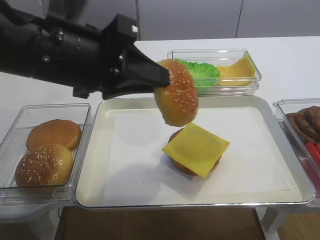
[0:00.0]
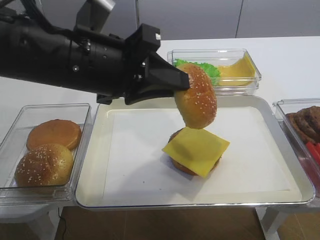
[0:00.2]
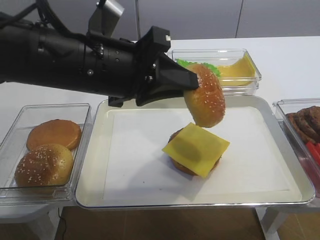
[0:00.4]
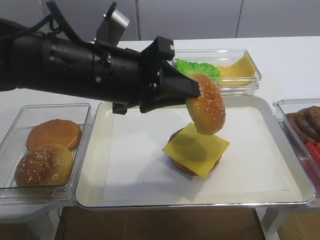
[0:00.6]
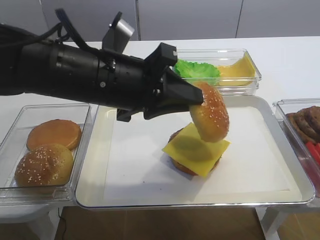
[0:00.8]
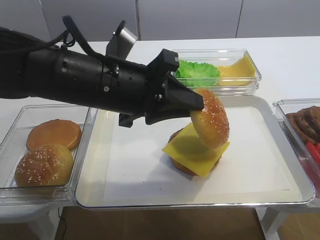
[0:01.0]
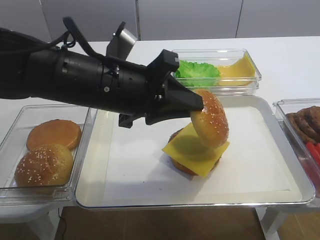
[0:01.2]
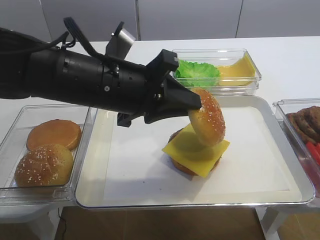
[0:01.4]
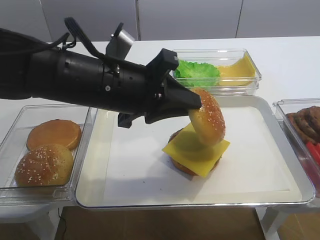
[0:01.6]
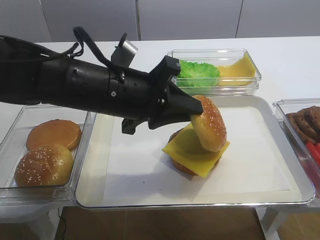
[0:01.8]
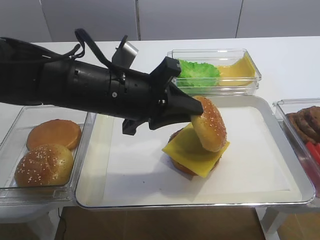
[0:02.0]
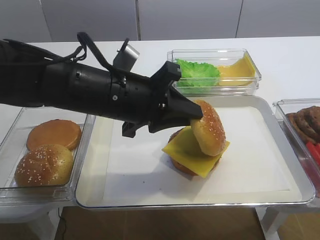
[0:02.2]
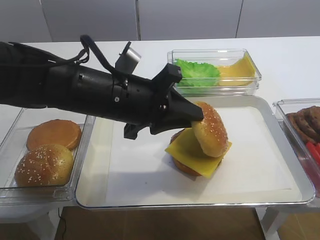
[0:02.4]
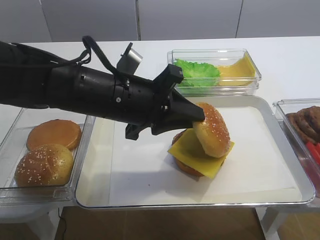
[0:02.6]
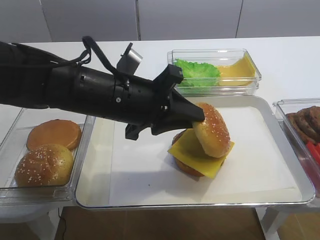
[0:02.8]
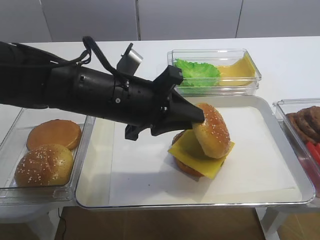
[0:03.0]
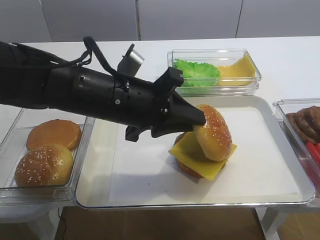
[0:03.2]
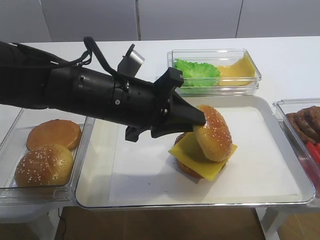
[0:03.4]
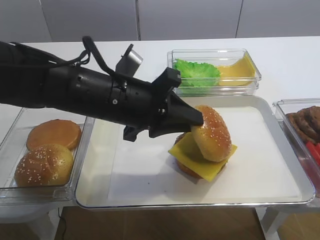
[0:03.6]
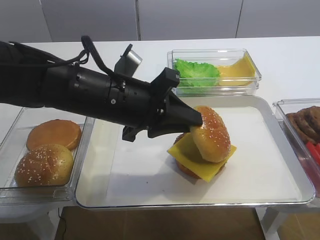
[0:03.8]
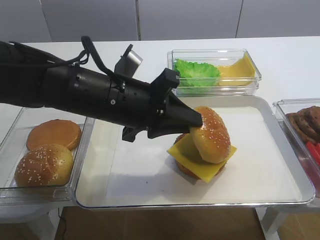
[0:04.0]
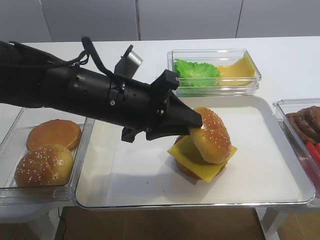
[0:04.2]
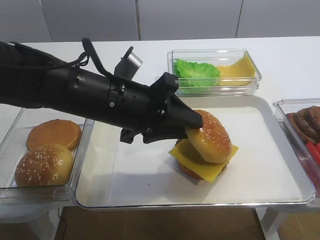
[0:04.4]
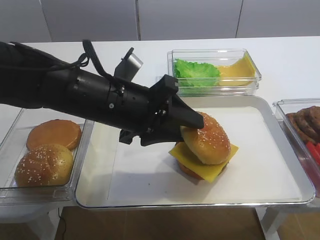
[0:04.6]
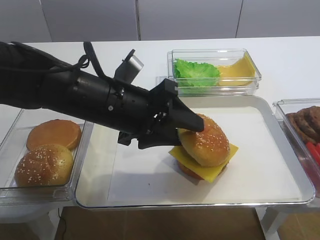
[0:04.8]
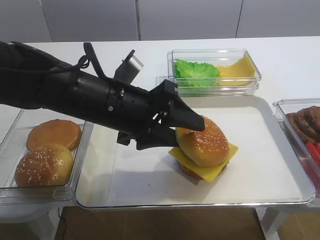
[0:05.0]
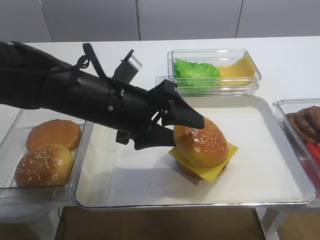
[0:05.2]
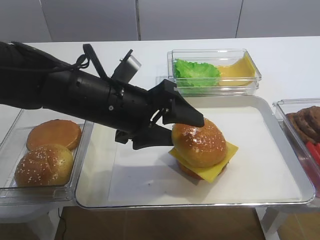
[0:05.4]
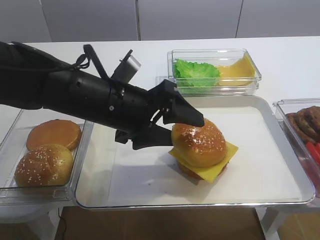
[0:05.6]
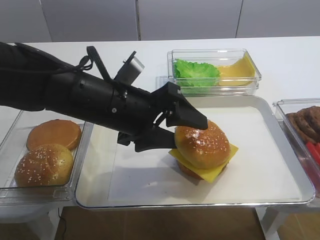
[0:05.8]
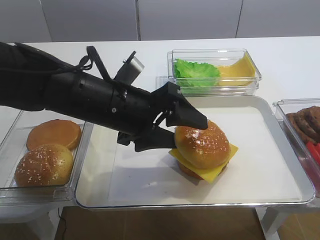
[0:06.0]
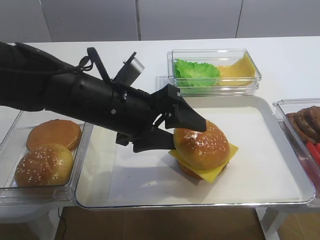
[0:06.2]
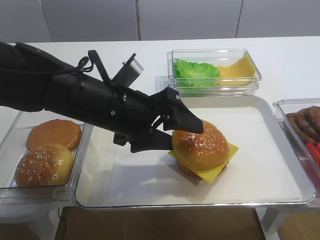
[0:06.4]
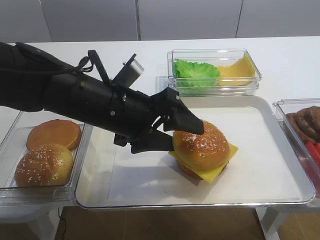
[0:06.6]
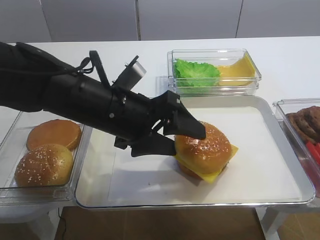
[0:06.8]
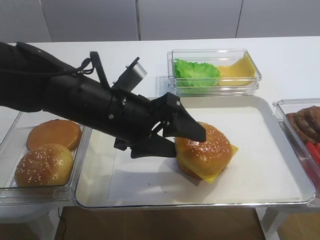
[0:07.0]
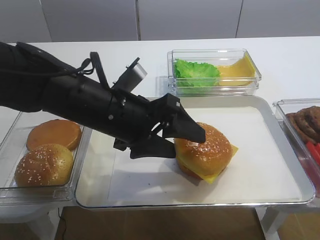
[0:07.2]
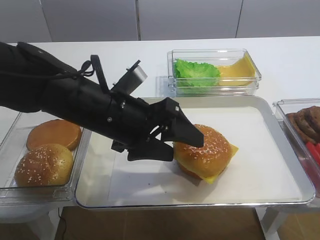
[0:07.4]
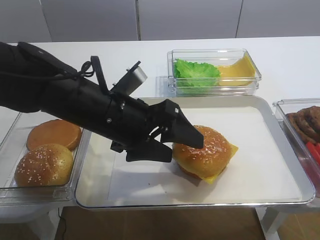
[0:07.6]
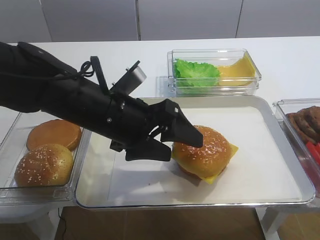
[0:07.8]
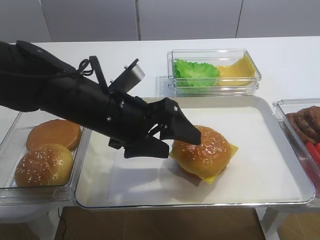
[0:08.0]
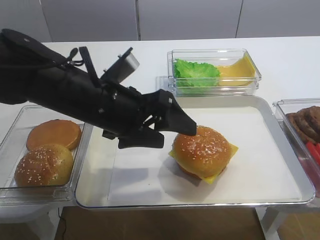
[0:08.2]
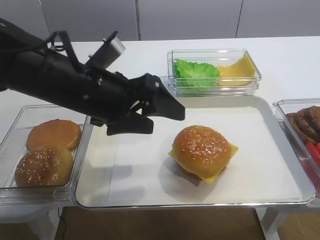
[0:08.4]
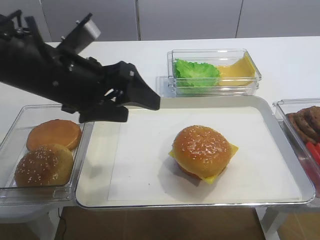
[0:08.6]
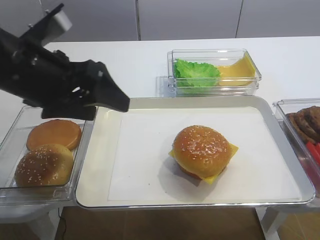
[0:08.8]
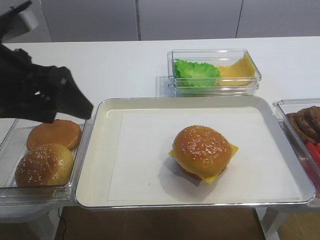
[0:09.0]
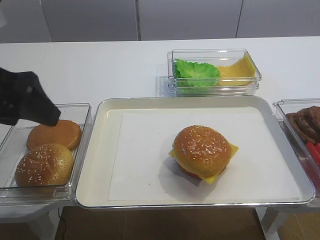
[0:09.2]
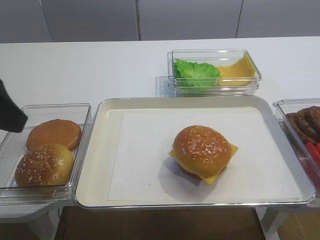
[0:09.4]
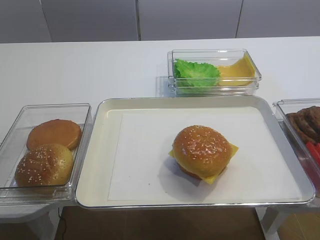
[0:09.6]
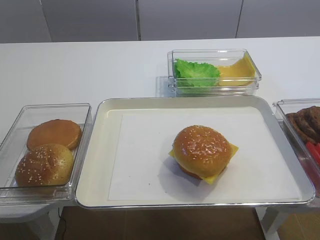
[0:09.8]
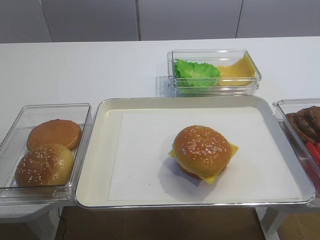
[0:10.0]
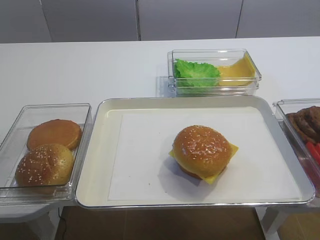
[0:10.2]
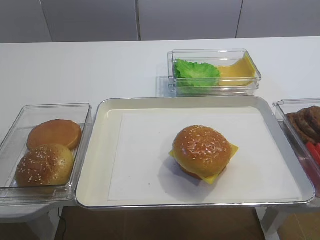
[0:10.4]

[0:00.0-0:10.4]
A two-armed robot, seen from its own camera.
Step, 0:00.0 to 0:08.2: Place the hamburger lid on the cheese slice with the left gripper.
0:00.0 to 0:01.4: The left gripper heads downward, covering roughly 5 cm.
0:01.4 to 0:03.0: There are only small adjustments of the grippers.
0:03.0 to 0:04.4: Both grippers stay about where they are.
0:04.4 to 0:06.0: The left gripper opens its fingers.
0:06.0 to 0:07.4: The grippers stay close to where they were, moving slightly.
0:07.4 to 0:09.0: The left gripper moves to the left and upward, approximately 15 cm.
0:09.0 to 0:10.4: The left gripper moves backward and to the left, approximately 25 cm.

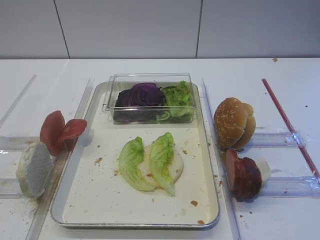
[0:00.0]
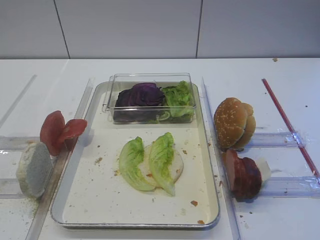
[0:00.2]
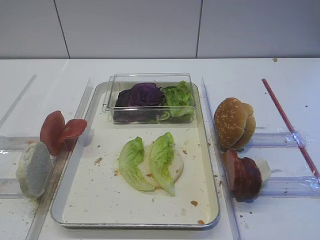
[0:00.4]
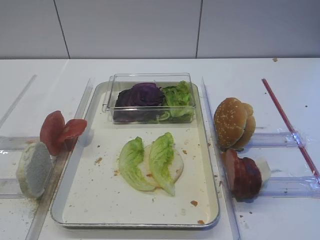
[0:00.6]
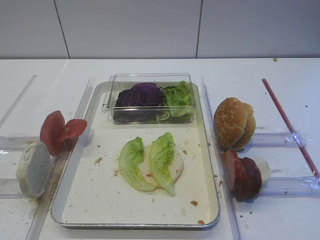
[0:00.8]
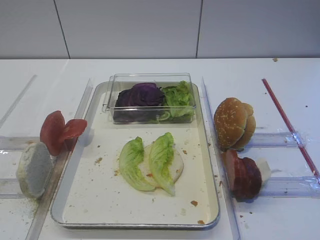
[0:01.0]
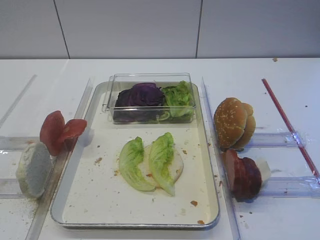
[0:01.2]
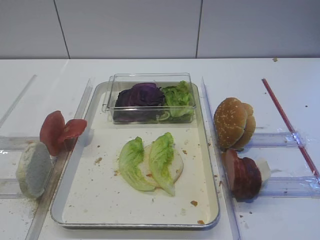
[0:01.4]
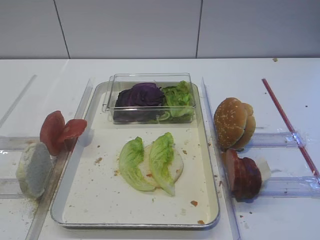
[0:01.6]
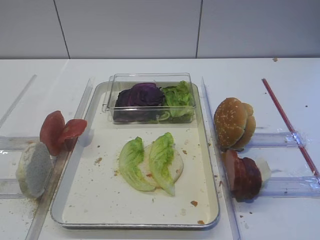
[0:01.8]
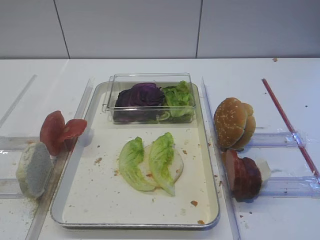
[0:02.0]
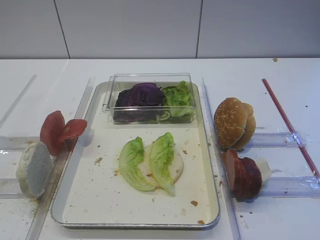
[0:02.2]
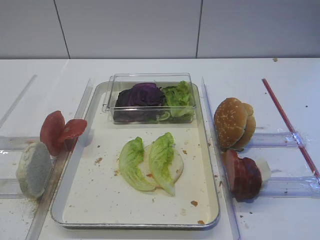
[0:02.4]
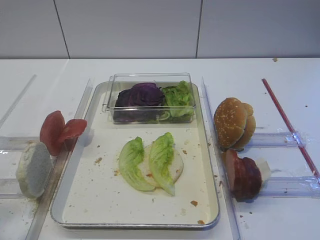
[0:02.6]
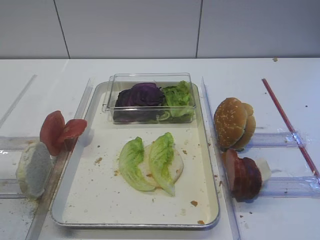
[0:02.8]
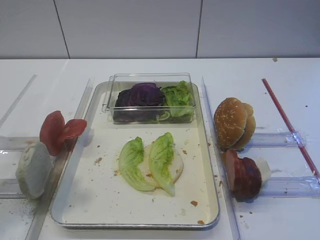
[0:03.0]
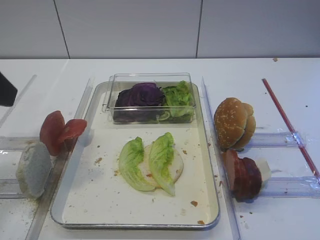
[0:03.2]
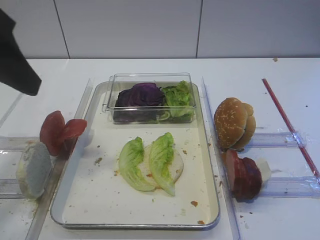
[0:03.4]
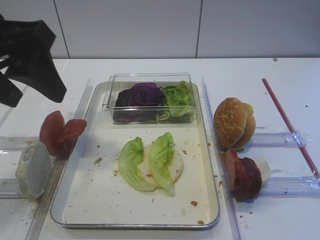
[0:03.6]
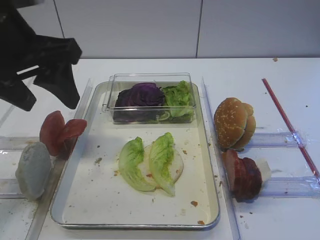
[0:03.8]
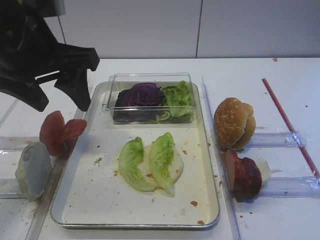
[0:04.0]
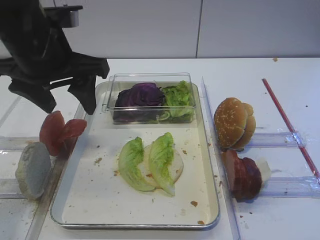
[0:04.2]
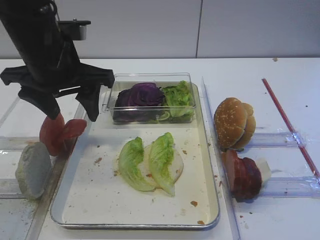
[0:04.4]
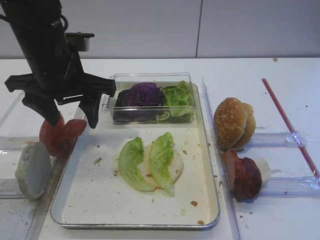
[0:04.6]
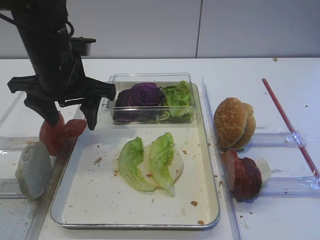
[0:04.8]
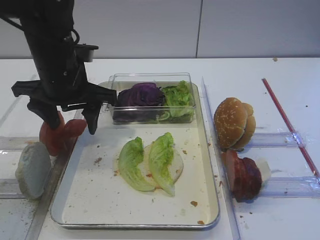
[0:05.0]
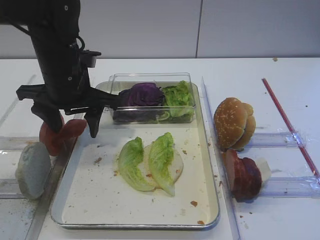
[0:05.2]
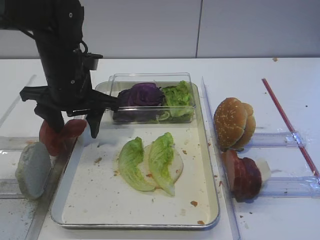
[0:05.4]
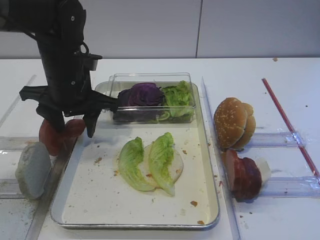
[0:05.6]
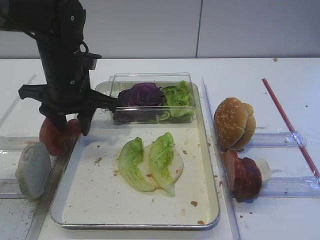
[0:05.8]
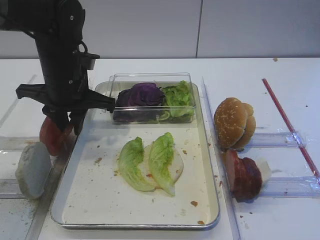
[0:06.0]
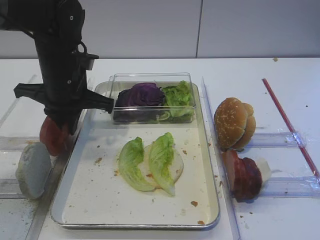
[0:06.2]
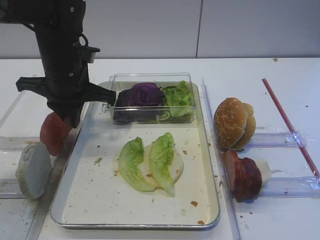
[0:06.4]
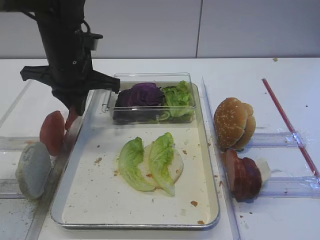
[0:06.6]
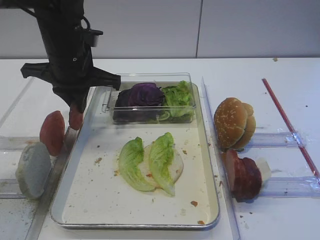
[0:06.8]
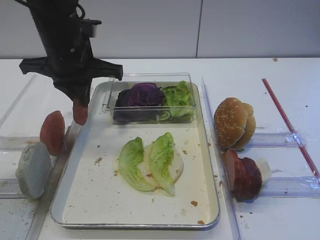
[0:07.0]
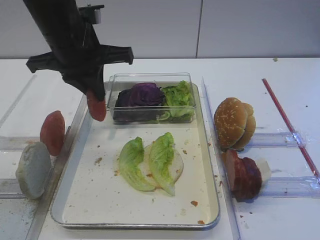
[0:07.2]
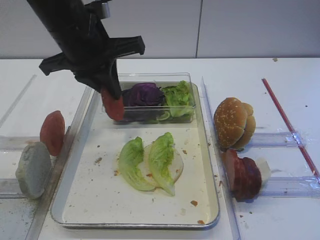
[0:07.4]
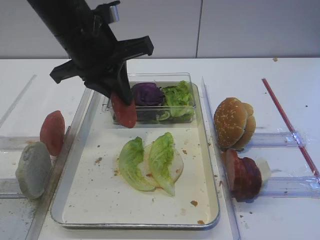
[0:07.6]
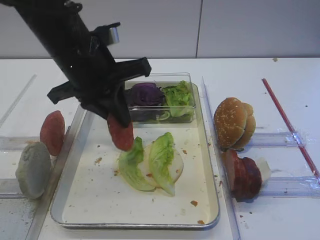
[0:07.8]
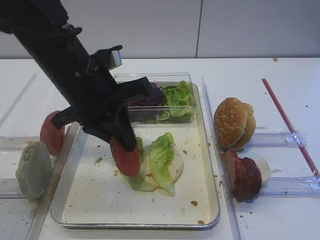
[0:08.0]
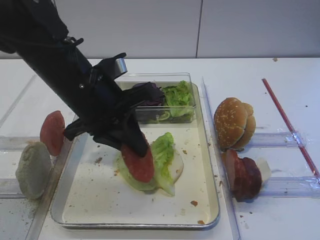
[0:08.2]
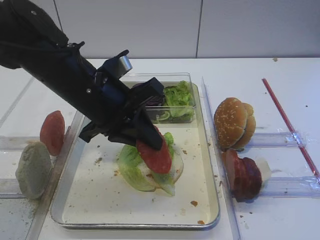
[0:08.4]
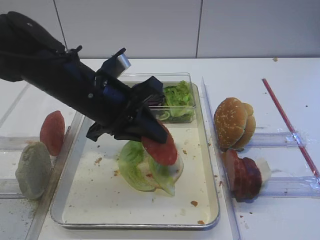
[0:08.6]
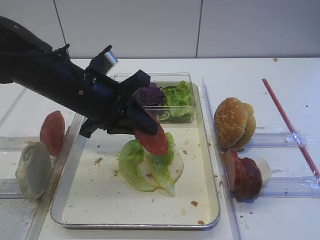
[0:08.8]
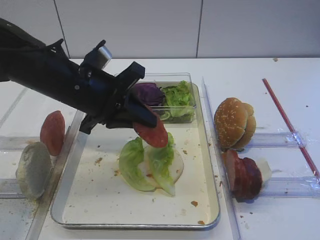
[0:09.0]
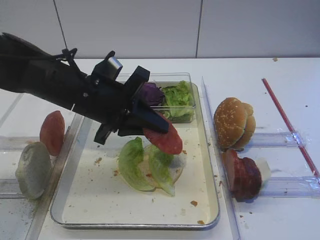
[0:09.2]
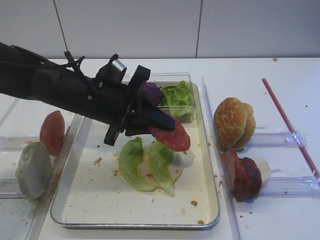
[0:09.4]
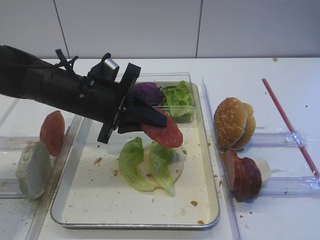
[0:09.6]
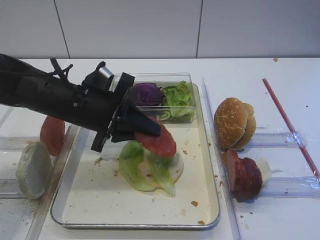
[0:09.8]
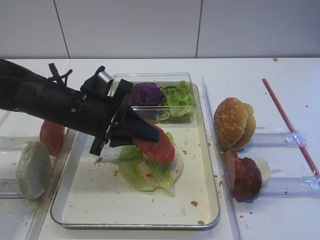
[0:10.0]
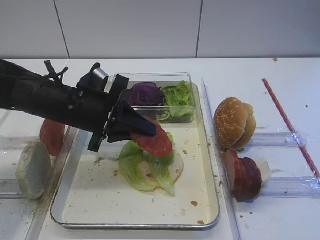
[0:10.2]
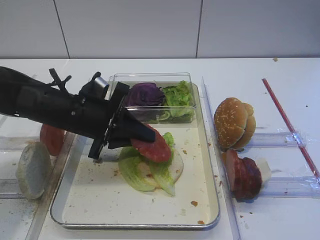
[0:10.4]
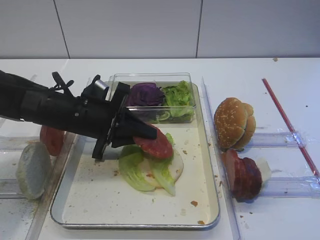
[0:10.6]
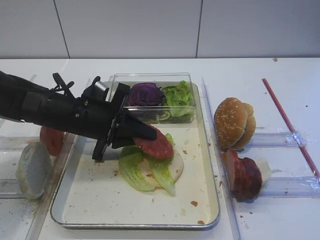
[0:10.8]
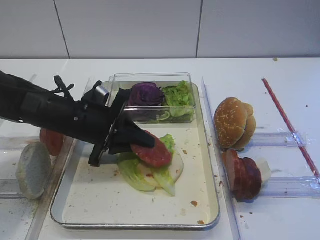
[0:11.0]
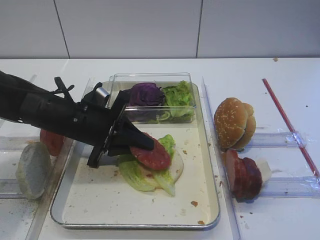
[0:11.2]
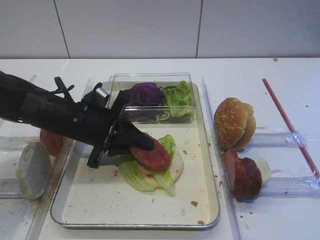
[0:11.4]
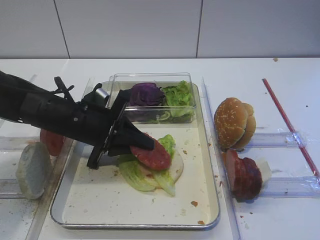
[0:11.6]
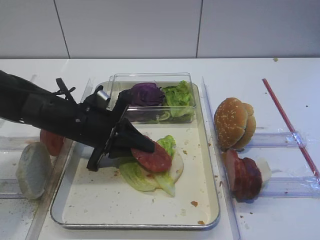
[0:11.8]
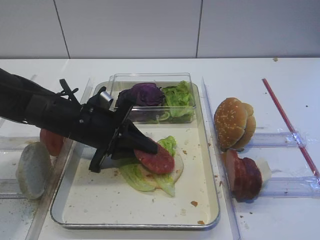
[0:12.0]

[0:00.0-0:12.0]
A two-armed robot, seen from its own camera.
Step, 0:00.0 to 0:06.6: Pick up the tomato slice with the left gripper.
0:01.6 to 0:03.0: The left gripper moves forward and upward, roughly 15 cm, and opens.
0:03.0 to 0:04.4: The left gripper heads forward and to the right, covering approximately 20 cm.
0:04.4 to 0:06.0: The left gripper shifts about 5 cm downward, and closes its fingers.
0:06.0 to 0:07.6: The left gripper moves upward, some 10 cm, and closes its fingers.
0:07.6 to 0:09.0: The left gripper travels downward by approximately 10 cm.
0:09.0 to 0:10.4: The left gripper shifts some 5 cm downward.
0:10.4 to 0:12.0: The grippers make only small movements.
